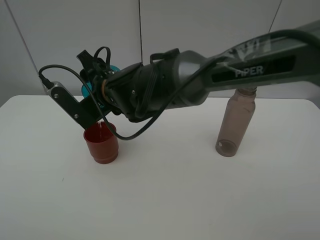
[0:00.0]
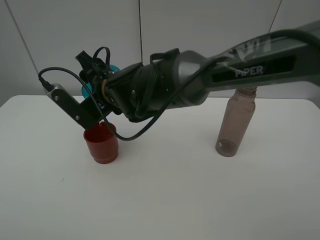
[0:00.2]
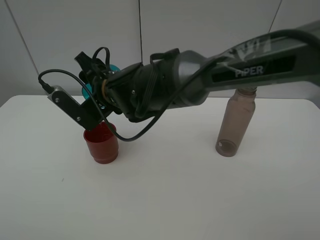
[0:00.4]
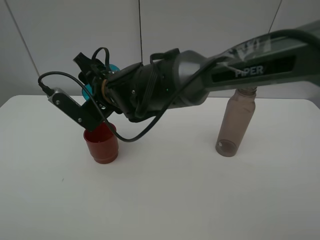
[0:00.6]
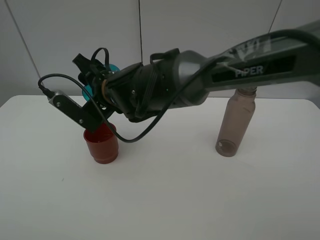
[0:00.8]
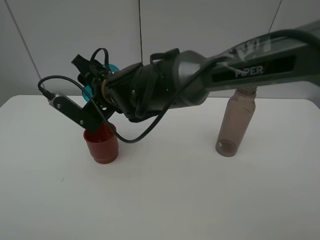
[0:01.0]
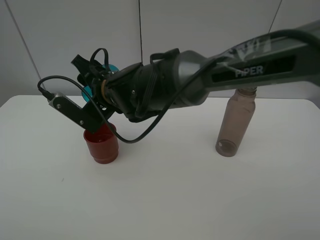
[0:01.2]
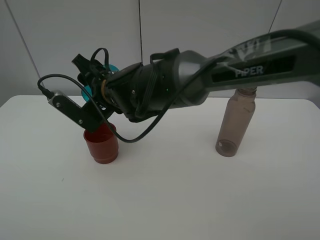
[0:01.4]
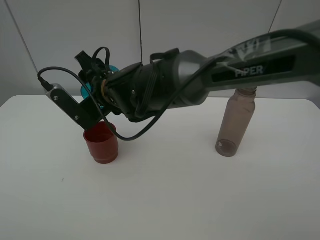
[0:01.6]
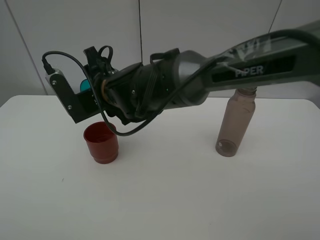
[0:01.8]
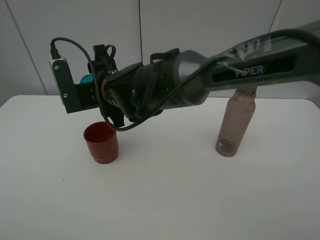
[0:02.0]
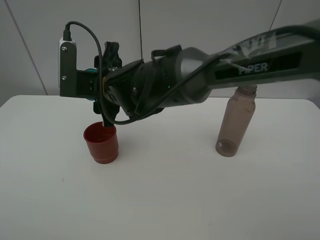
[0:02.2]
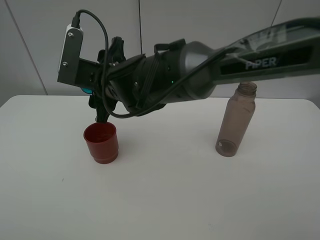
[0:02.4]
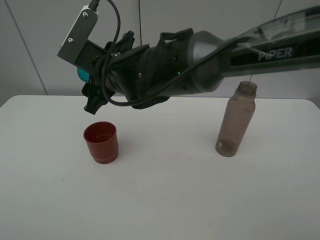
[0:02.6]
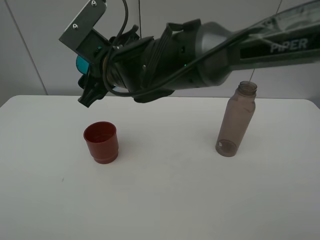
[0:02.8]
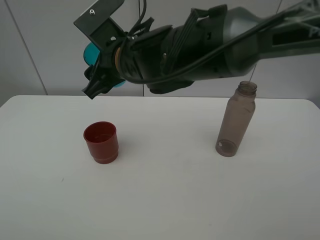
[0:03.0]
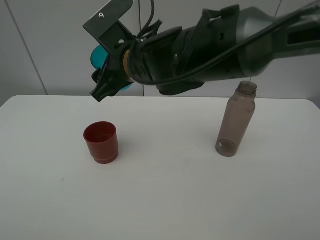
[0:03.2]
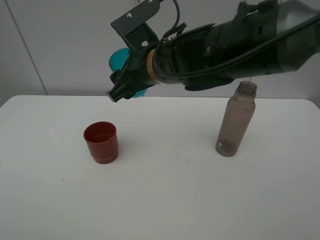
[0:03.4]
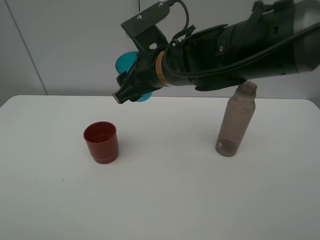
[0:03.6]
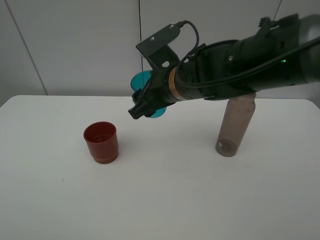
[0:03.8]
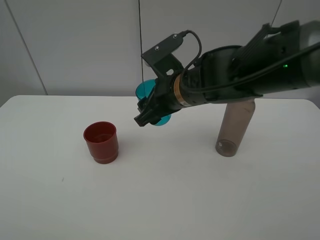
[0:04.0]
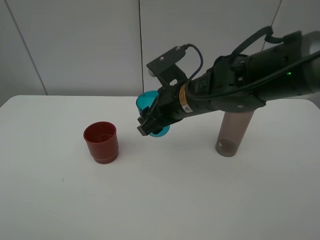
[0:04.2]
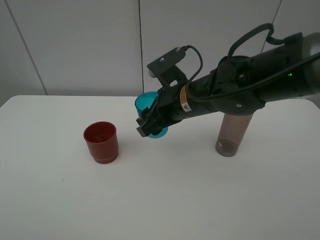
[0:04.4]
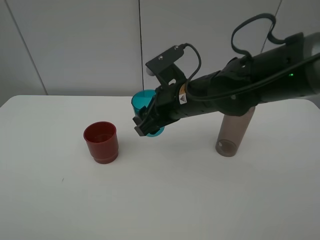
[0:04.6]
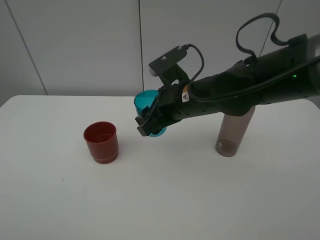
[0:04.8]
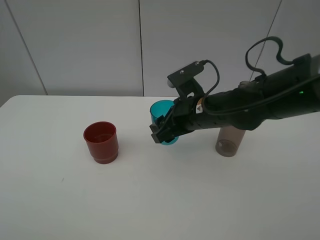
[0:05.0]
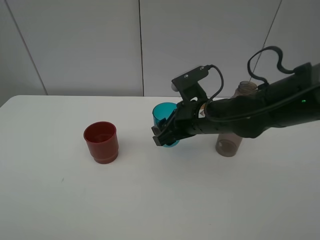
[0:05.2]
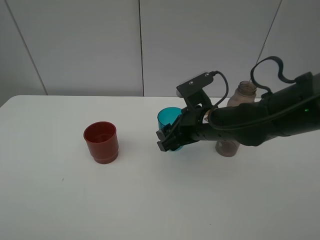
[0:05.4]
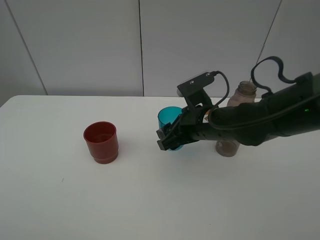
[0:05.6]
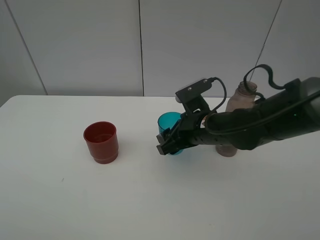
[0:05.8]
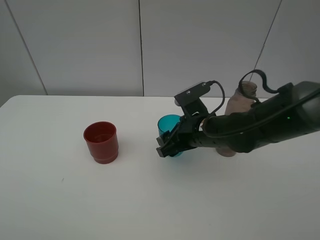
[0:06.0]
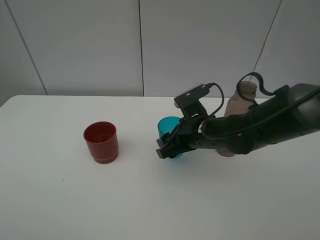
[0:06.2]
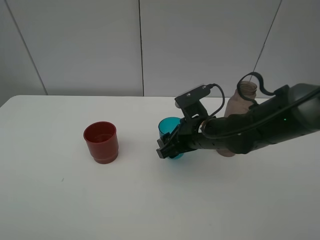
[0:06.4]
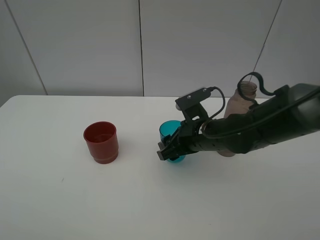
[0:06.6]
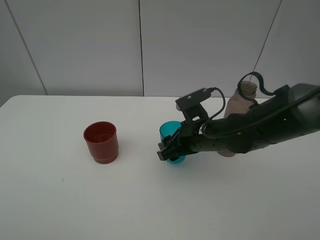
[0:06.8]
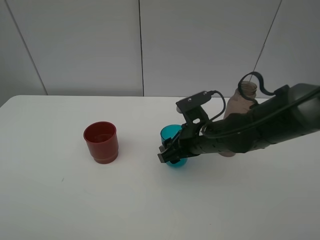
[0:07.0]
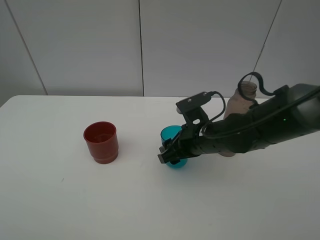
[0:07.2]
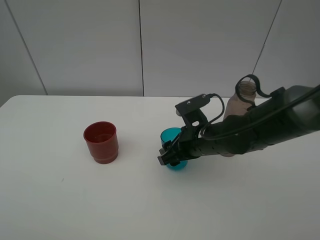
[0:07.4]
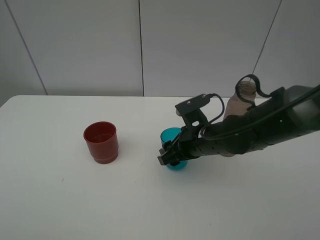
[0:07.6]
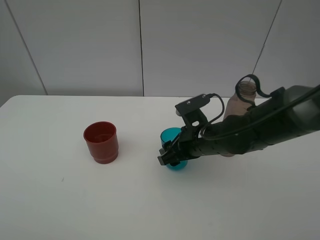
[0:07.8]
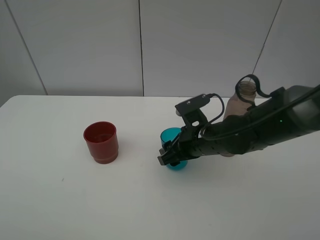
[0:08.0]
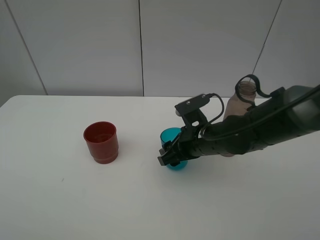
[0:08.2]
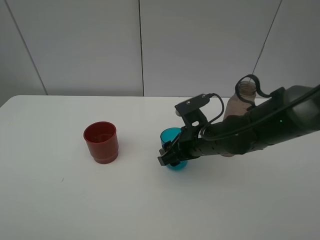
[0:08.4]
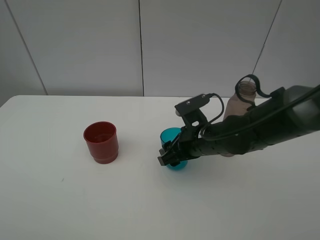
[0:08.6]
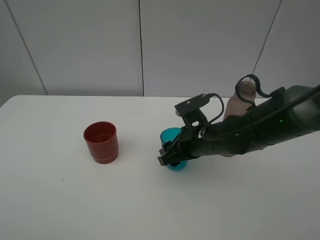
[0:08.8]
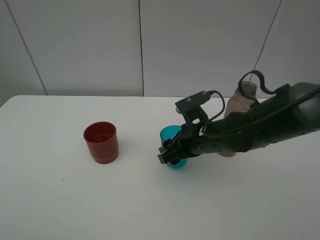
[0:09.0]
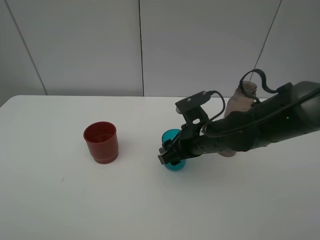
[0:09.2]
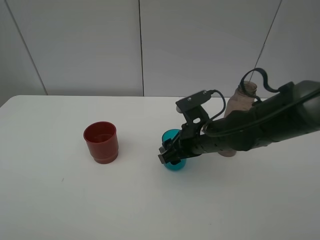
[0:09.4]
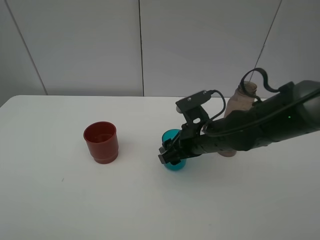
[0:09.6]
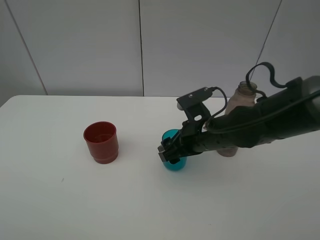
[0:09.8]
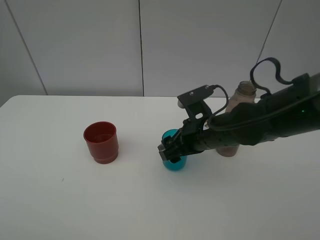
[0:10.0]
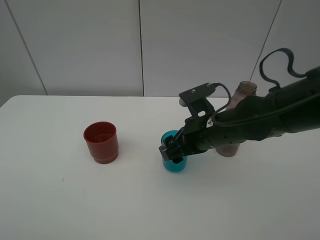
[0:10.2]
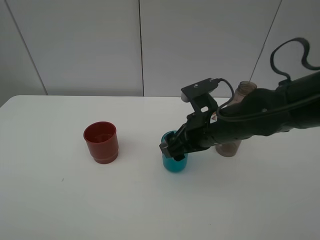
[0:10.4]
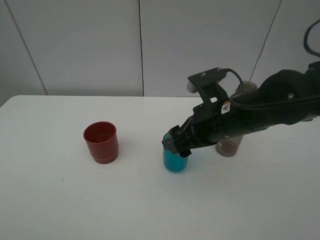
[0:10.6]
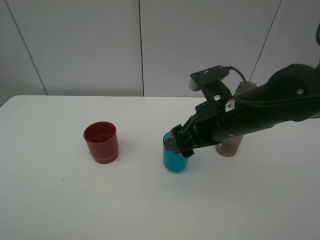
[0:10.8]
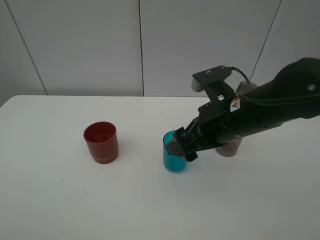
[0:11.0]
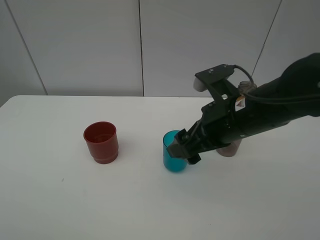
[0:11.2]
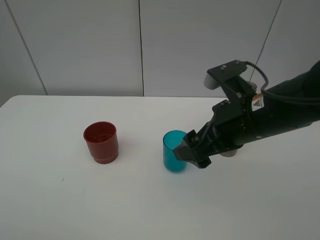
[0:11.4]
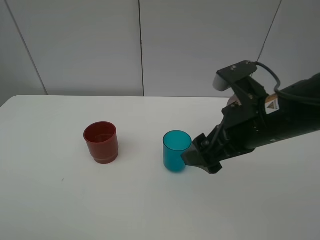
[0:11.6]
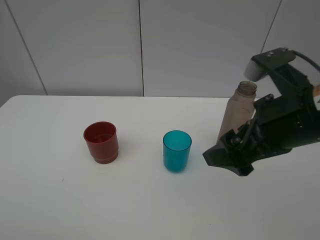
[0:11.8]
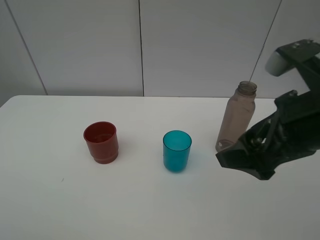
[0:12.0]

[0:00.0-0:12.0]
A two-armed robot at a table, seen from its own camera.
Task of the whole recording: pick up the bottle and pour water into the cup, then pick up the cup containing water and pour it into another cup.
Step, 0:00.8 to 0:09.2: Place the blue cup with the right gripper.
0:00.0 to 0:01.6: The grippers move only a little.
0:01.6 to 0:03.0: The right gripper moves upward, approximately 5 cm.
0:03.0 to 0:04.4: The right gripper is displaced to the right and downward by roughly 10 cm.
0:04.4 to 0:06.0: The right gripper goes approximately 5 cm downward.
0:06.0 to 0:07.6: The grippers stay close to where they were, moving slightly.
0:07.6 to 0:09.0: Both grippers stay about where they are.
0:09.0 to 0:10.4: The right gripper heads upward, covering about 5 cm.
0:10.4 to 0:12.0: The right gripper is displaced upward, backward and to the right by some 20 cm, and opens.

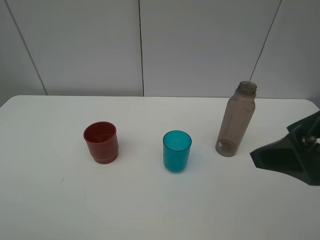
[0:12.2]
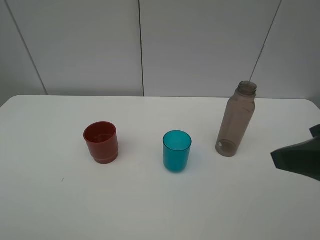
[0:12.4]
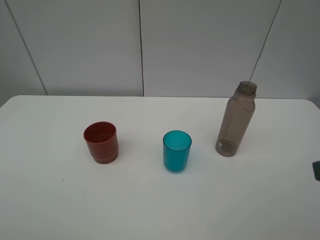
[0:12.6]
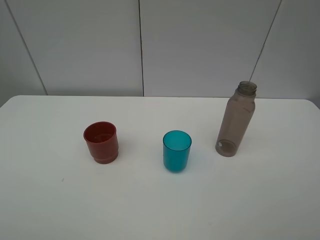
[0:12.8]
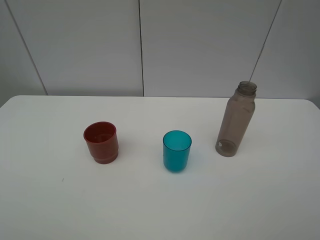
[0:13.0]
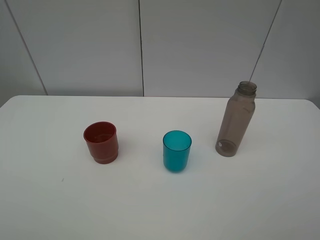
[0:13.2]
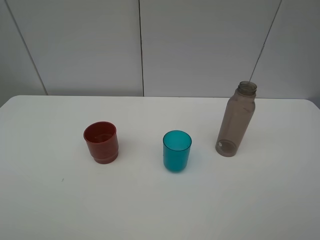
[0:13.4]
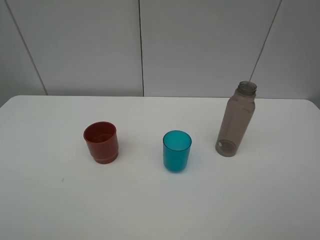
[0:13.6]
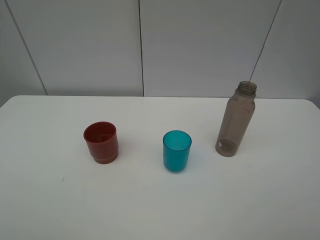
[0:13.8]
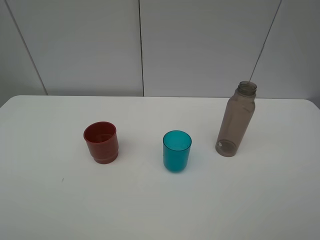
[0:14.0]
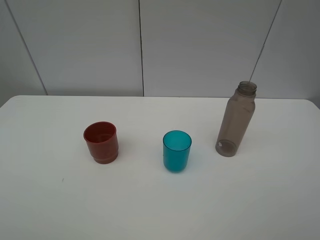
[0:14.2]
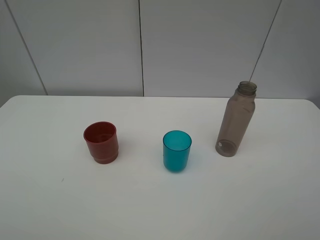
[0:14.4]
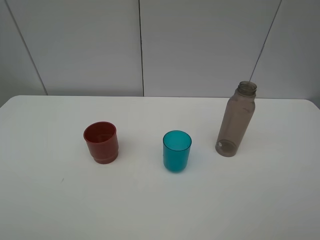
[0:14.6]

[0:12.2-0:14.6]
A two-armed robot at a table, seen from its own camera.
Task of the whole recording: pick up the bottle and pour water into the cup, then pick up the cup containing water and pour it into another cup.
0:12.2 to 0:13.4: The right gripper moves backward and to the right, roughly 15 cm.
0:13.4 to 0:14.6: Both grippers stay about where they are.
